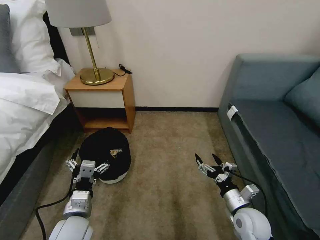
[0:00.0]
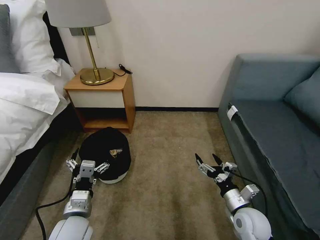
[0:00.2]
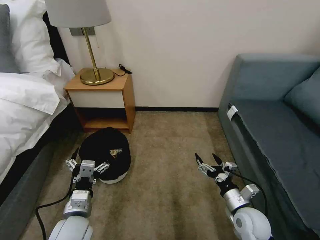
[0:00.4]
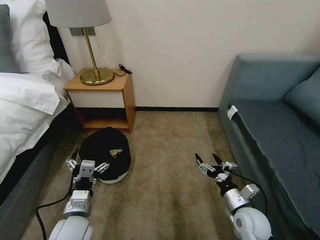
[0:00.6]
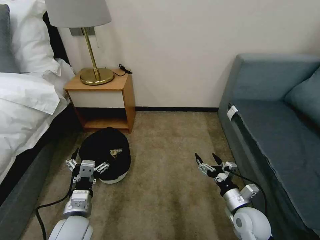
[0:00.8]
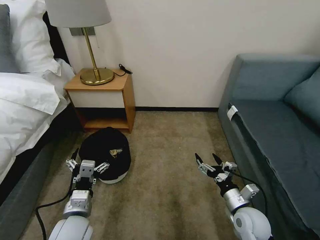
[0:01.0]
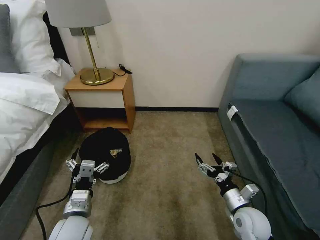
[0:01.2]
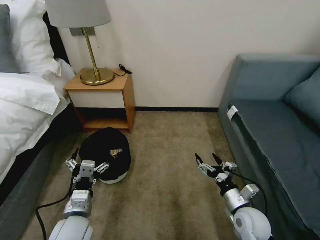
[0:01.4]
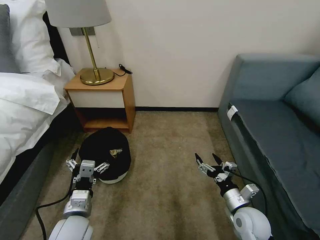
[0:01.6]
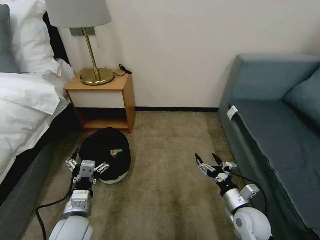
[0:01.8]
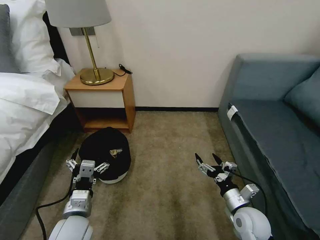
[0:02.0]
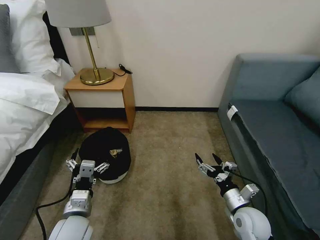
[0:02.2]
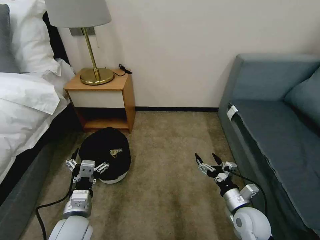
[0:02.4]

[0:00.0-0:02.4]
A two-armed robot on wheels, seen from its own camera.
Task of the whole recording: Pick up the trash bin, then pick up the garbage on the floor and place it into the trash bin.
0:00.0 to 0:02.4: The two grippers keep their place.

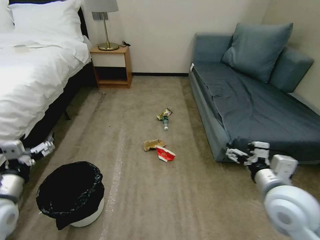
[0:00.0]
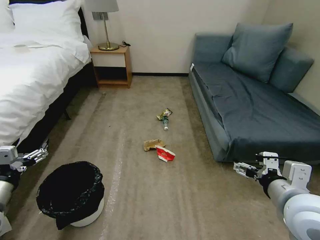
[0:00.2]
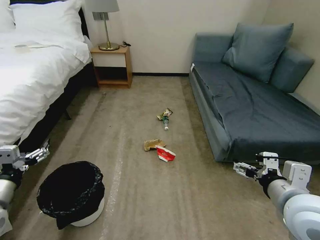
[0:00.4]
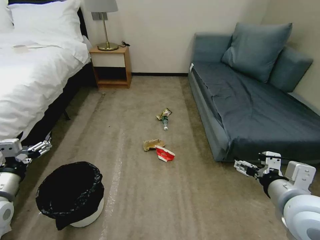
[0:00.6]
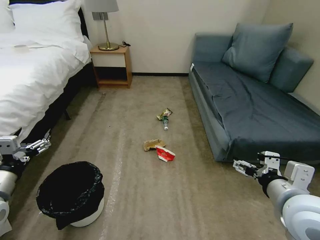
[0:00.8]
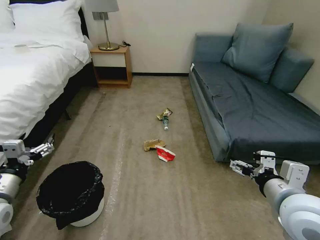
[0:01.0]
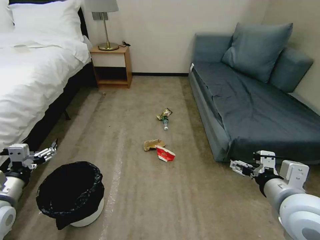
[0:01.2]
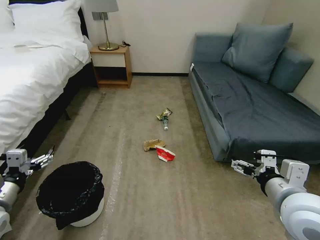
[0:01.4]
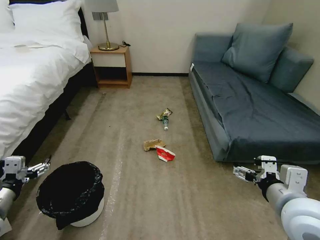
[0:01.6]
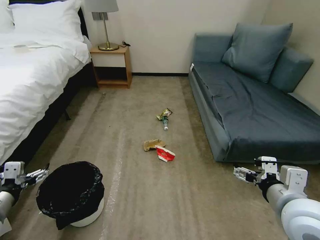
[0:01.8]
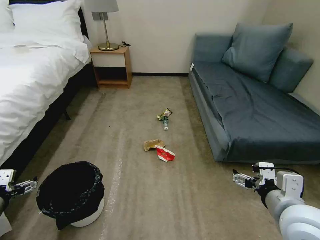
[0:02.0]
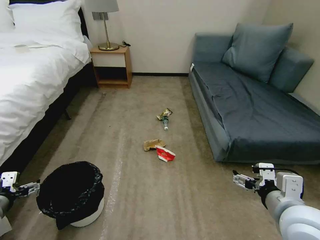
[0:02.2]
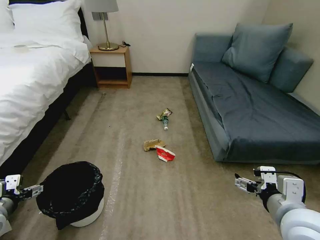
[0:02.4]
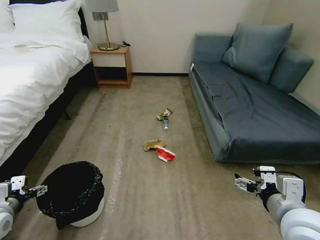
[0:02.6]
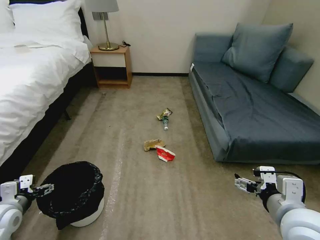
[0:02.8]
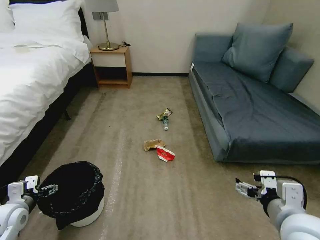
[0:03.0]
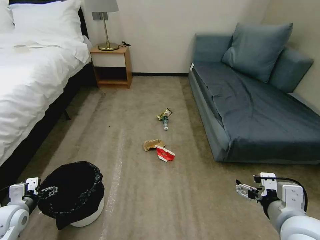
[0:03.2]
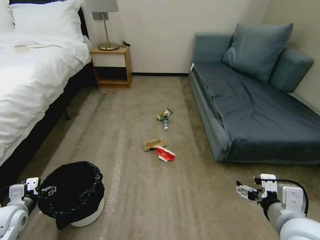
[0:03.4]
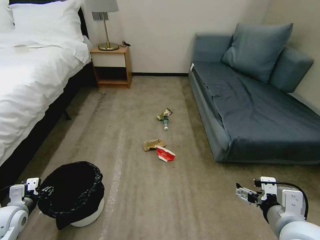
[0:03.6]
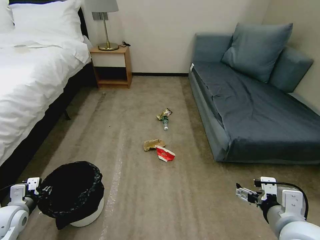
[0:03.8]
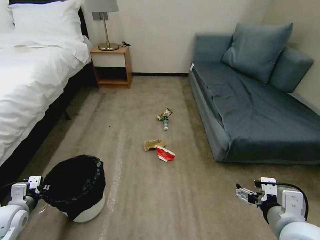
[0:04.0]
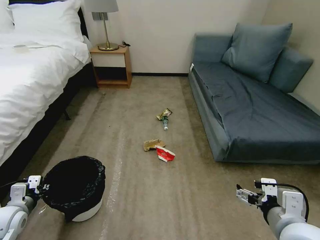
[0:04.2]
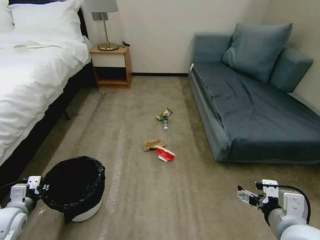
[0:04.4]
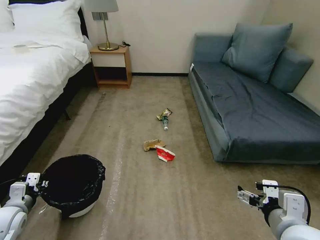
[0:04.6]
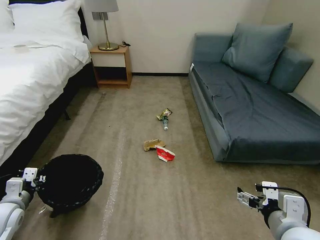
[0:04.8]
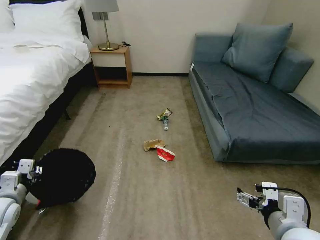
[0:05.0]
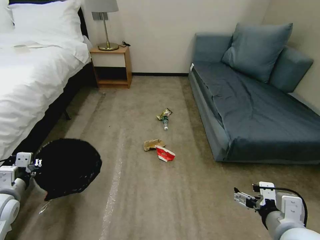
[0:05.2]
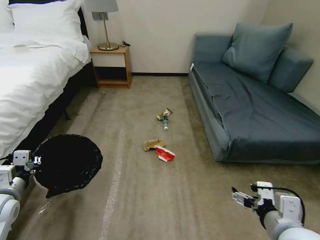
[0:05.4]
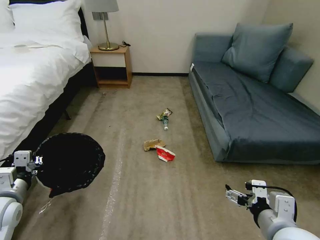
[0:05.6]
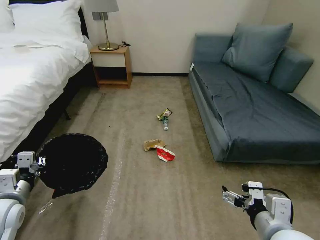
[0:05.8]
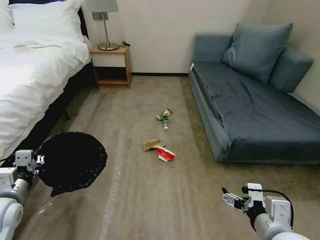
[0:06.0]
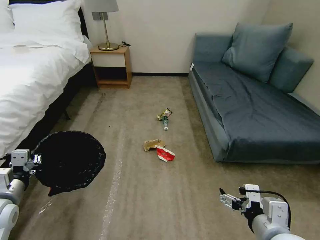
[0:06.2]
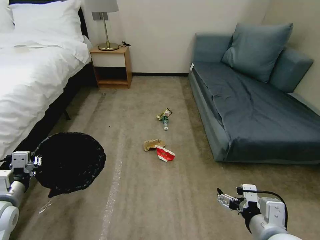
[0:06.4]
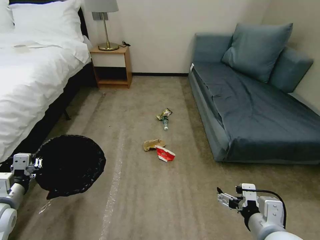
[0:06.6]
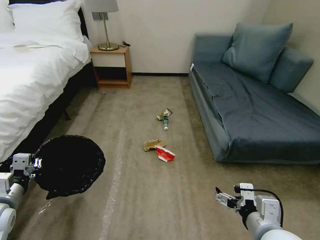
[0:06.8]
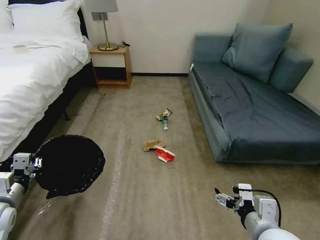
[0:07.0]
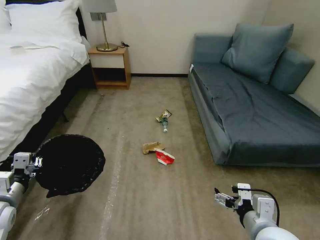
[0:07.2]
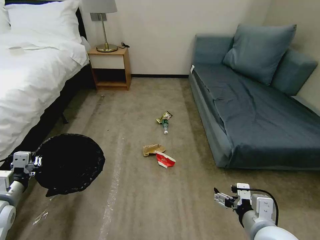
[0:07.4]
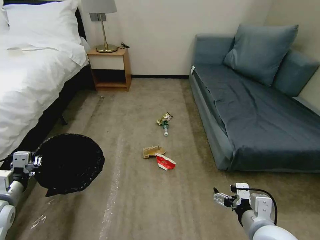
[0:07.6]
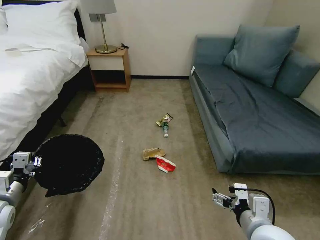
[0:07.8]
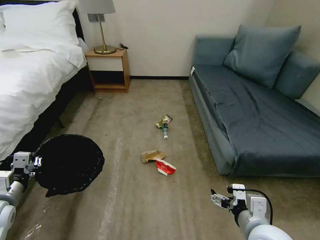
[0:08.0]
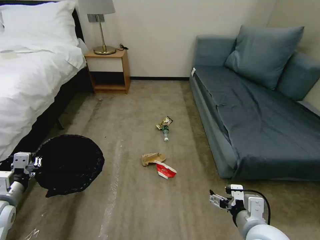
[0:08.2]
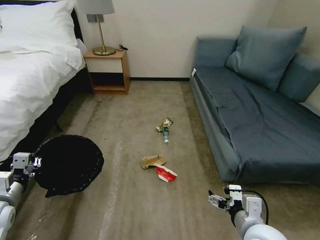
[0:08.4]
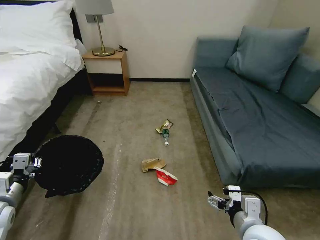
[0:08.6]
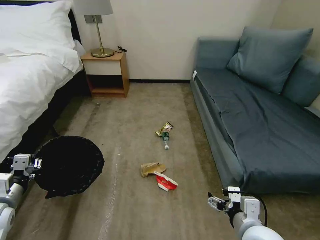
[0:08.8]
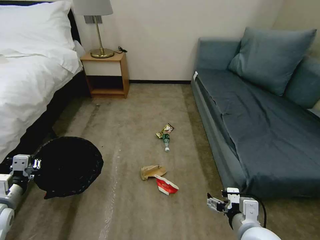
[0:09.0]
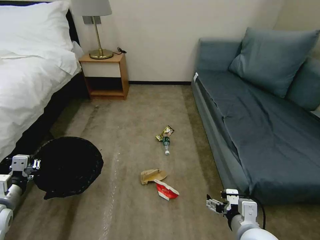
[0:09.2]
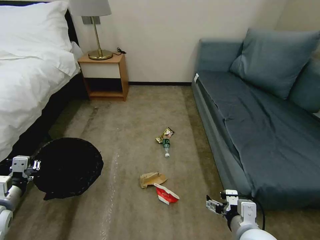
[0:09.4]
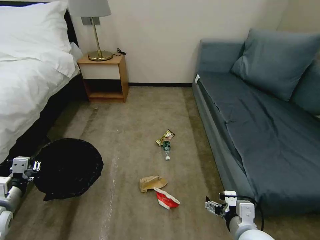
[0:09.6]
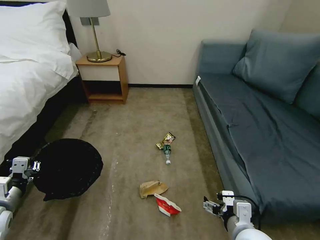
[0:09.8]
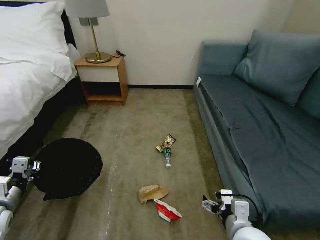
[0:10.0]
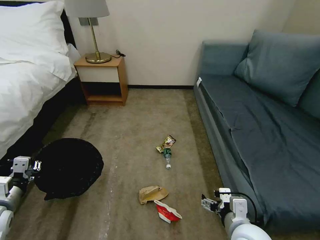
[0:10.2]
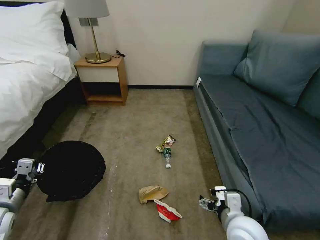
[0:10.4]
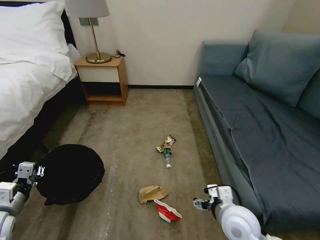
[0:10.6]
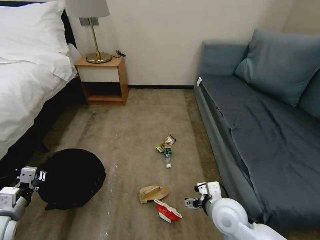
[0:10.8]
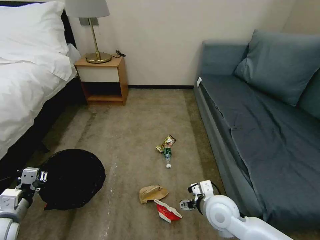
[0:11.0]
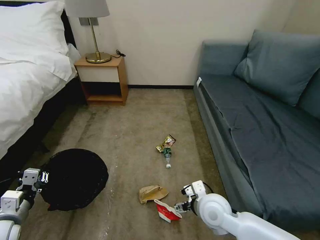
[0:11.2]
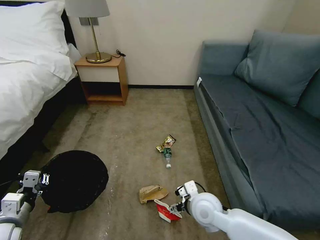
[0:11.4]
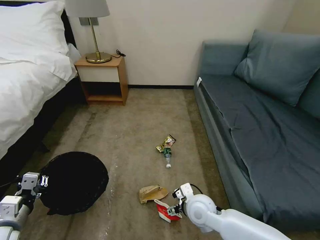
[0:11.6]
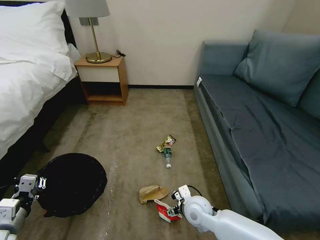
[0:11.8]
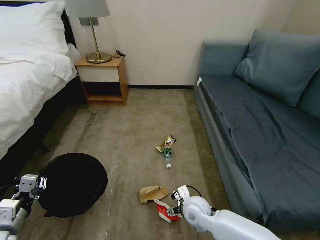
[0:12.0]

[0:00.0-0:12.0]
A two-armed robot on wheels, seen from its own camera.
Task of the whole recording: Pick up the trash bin, then pick up the garbage on the floor and place it into the trash bin.
0:01.6 to 0:03.0: The left gripper moves downward, some 10 cm.
0:03.0 to 0:04.4: The left gripper closes its fingers.
0:04.4 to 0:06.0: The left gripper is displaced upward and to the right by about 10 cm.
0:06.0 to 0:07.6: The grippers stay close to where they were, moving slightly.
0:10.4 to 0:12.0: The left gripper is displaced backward by roughly 5 cm; the right gripper moves downward, forward and to the left, approximately 15 cm.

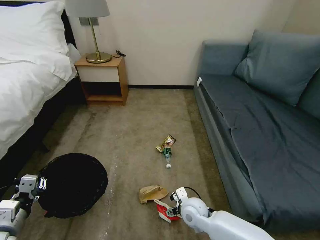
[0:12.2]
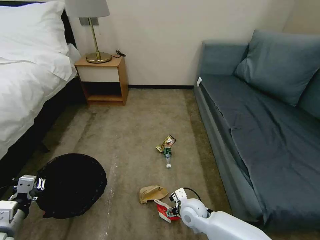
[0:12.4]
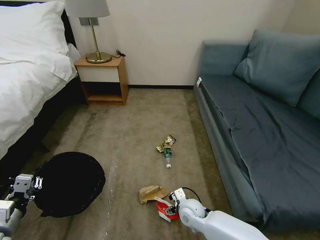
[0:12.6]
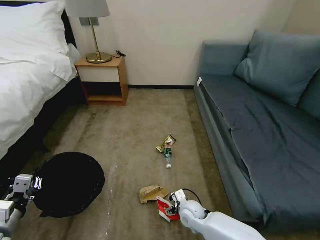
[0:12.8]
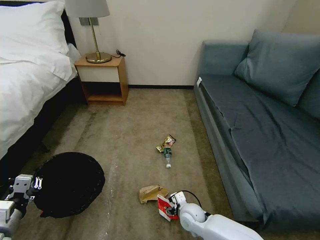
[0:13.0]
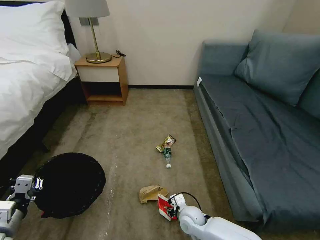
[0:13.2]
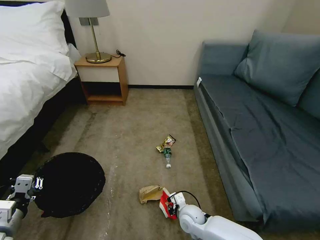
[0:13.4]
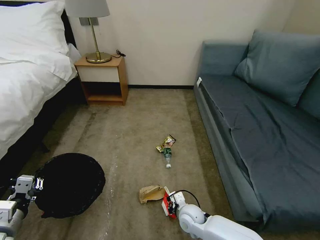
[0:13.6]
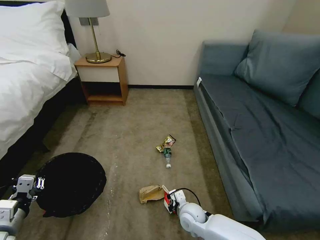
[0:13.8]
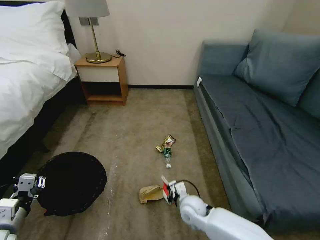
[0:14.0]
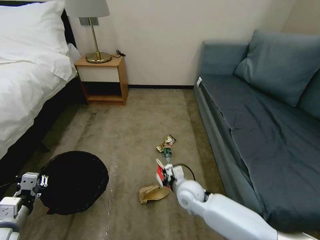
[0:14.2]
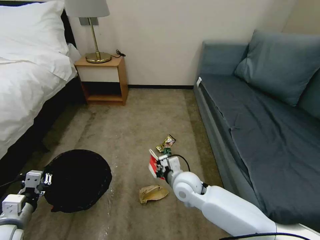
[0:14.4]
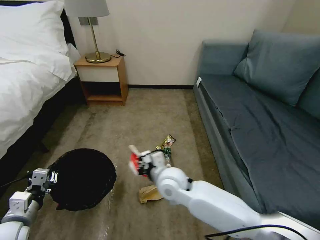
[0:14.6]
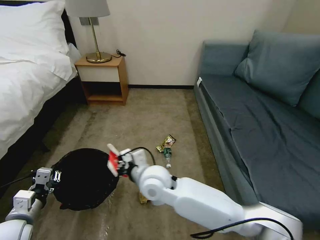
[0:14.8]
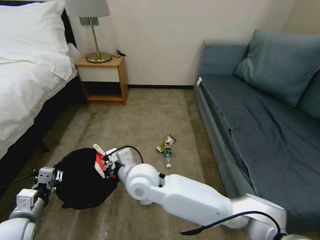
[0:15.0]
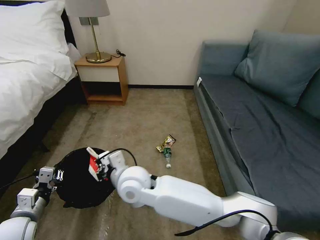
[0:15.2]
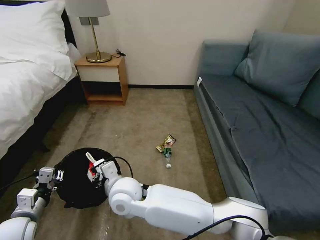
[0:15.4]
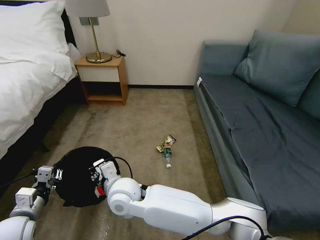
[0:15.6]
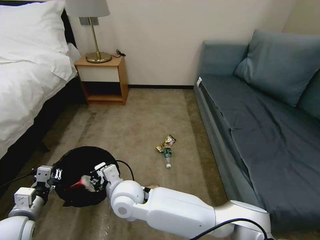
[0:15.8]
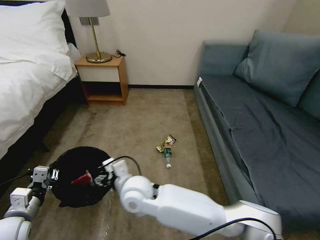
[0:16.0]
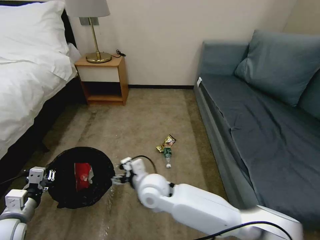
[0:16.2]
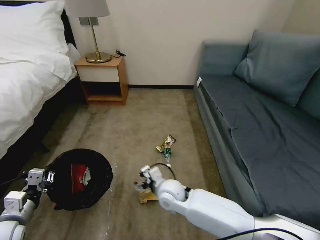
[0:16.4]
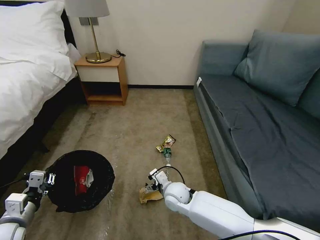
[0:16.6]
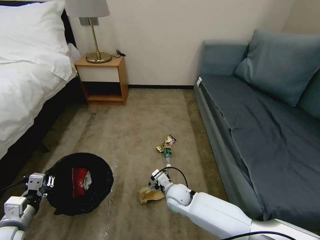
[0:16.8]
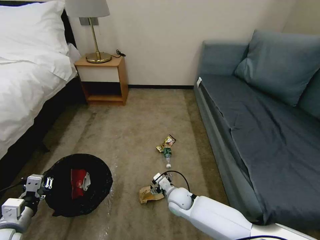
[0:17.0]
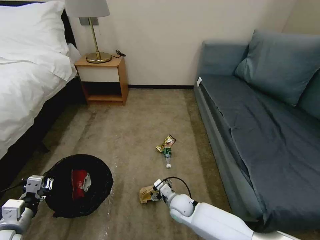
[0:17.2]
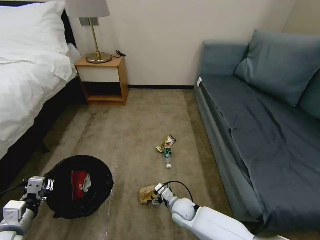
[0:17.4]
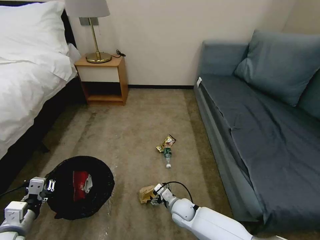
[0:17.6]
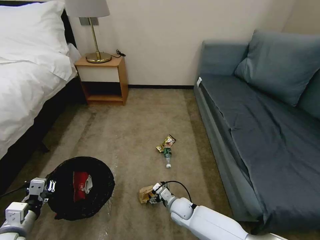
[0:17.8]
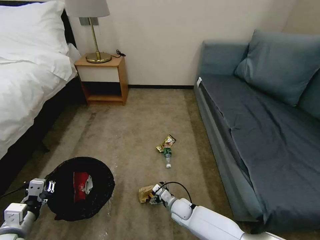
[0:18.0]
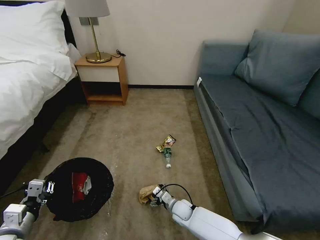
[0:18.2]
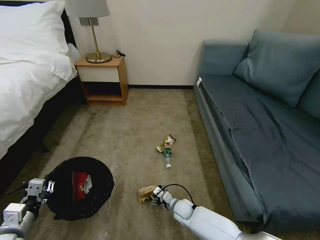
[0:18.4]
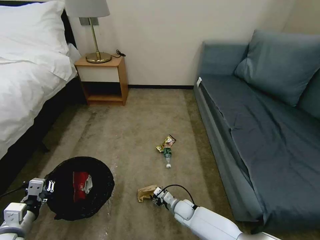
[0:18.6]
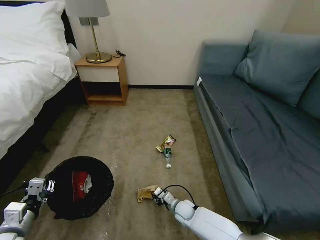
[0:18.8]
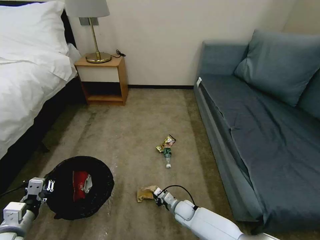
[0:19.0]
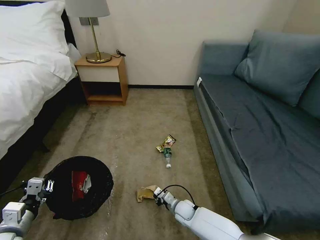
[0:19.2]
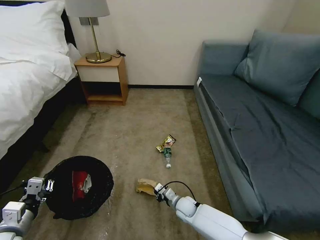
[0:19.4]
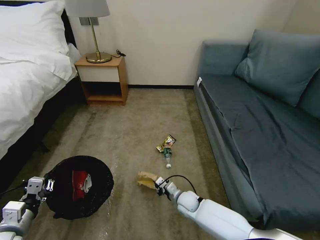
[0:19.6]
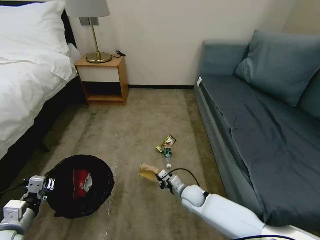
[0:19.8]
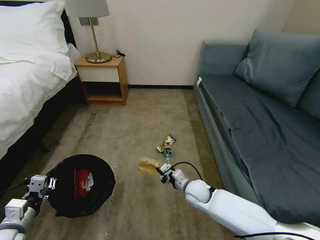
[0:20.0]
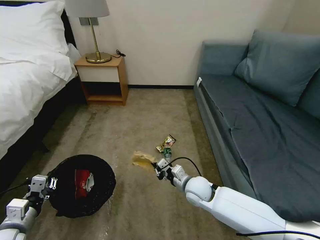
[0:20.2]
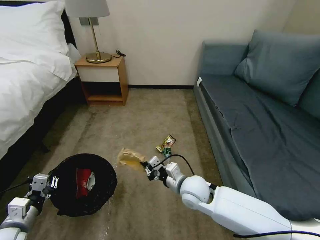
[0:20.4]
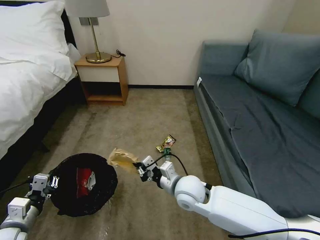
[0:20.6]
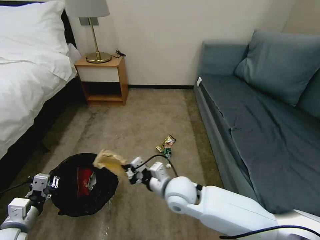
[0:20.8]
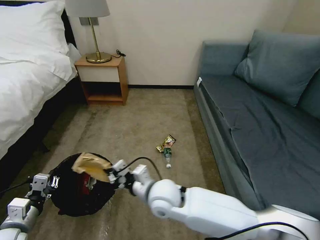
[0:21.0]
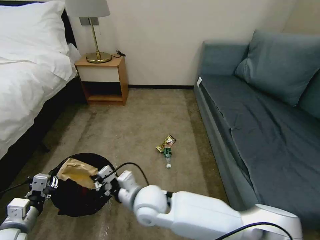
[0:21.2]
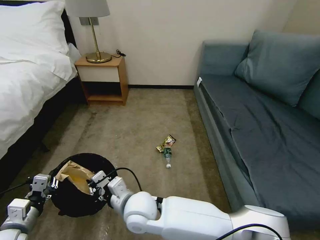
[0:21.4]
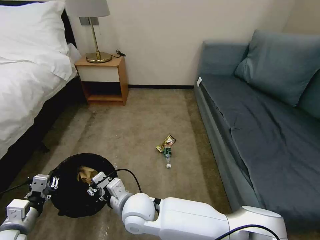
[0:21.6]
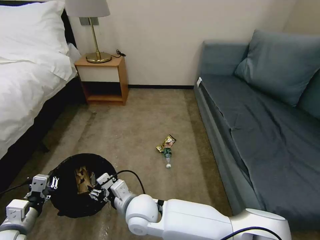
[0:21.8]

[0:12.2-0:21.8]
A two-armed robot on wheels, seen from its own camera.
Task of the whole recording: Pick up the trash bin, then pick up the garbage on the floor and place it into the trash bin.
0:12.2 to 0:13.8: The right gripper closes its fingers.
0:13.8 to 0:15.4: The right gripper goes roughly 30 cm to the left and upward.
0:15.4 to 0:17.0: The right gripper shifts about 25 cm downward and to the right, and opens.
0:17.0 to 0:18.6: The right gripper is displaced downward by roughly 10 cm, and closes.
0:18.6 to 0:20.2: The right gripper moves upward, about 20 cm, and closes up.
0:20.2 to 0:21.8: The right gripper moves to the left and backward, about 20 cm, and opens its fingers.
